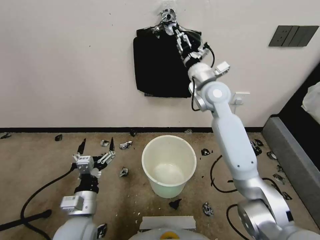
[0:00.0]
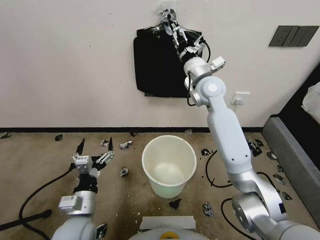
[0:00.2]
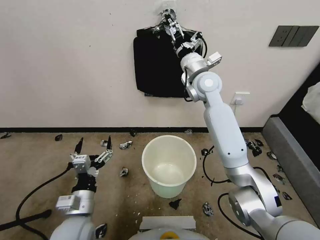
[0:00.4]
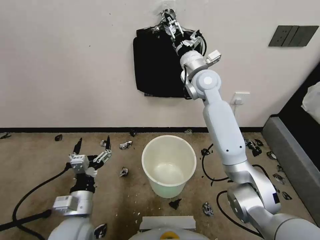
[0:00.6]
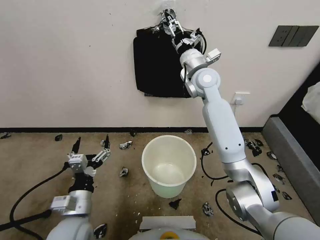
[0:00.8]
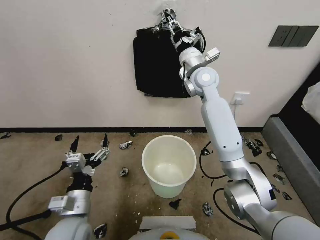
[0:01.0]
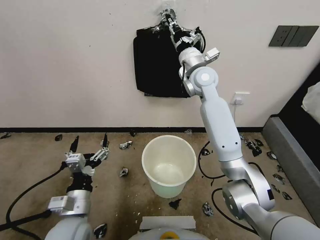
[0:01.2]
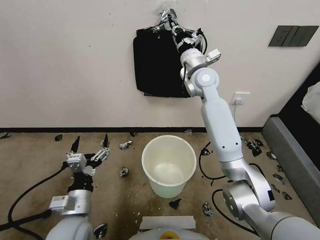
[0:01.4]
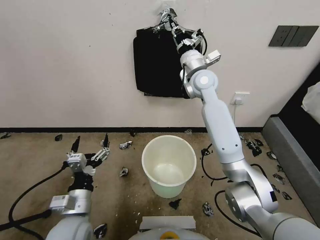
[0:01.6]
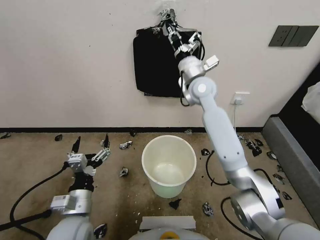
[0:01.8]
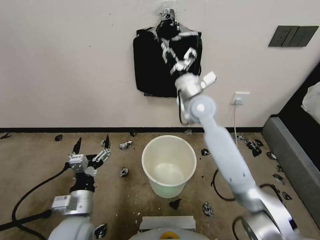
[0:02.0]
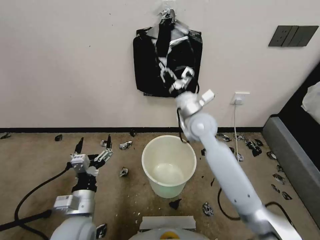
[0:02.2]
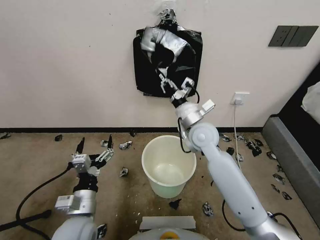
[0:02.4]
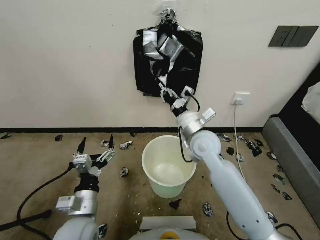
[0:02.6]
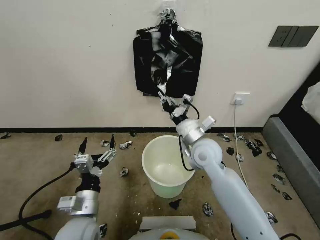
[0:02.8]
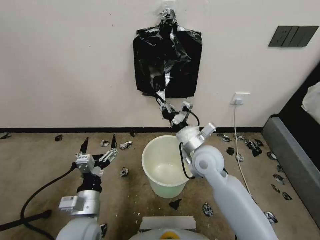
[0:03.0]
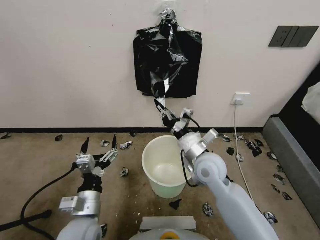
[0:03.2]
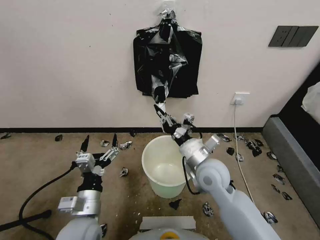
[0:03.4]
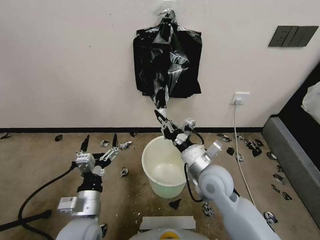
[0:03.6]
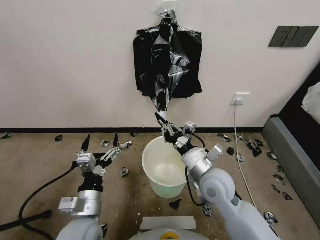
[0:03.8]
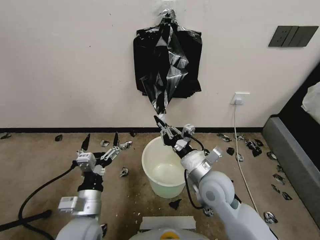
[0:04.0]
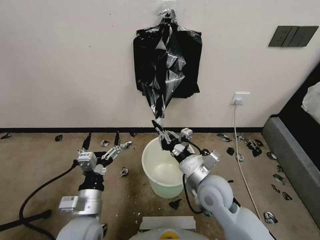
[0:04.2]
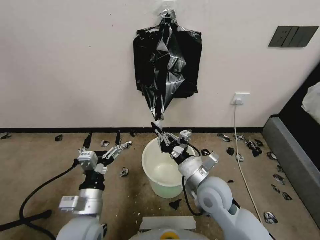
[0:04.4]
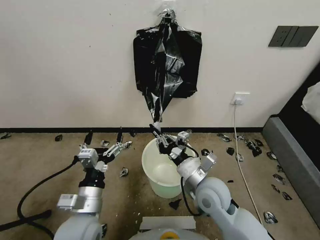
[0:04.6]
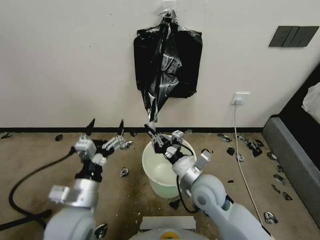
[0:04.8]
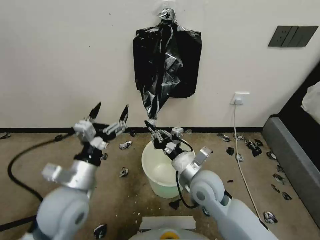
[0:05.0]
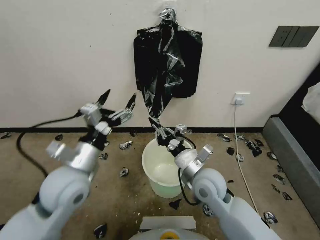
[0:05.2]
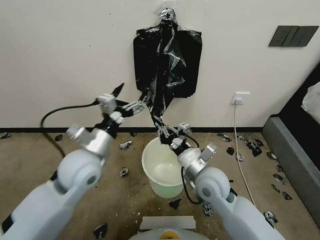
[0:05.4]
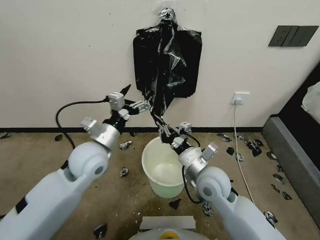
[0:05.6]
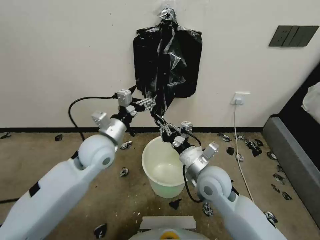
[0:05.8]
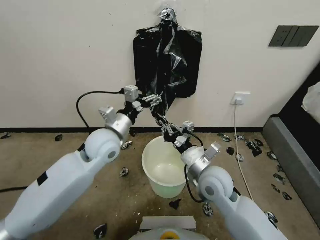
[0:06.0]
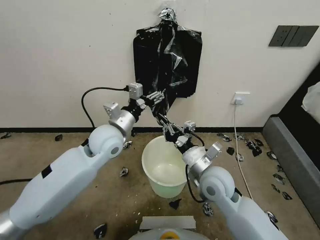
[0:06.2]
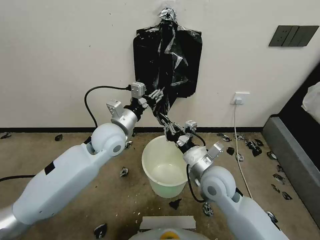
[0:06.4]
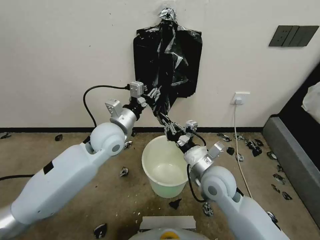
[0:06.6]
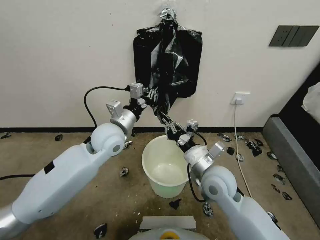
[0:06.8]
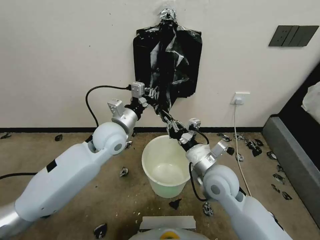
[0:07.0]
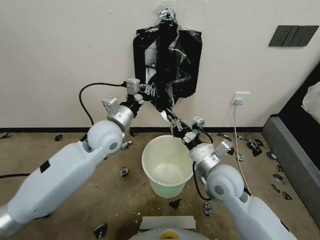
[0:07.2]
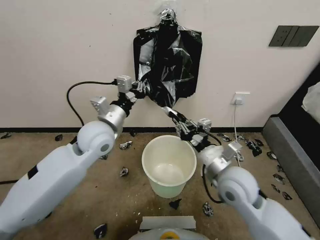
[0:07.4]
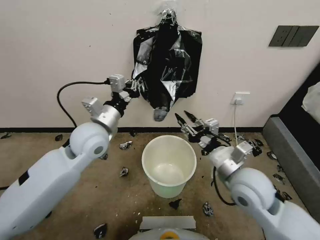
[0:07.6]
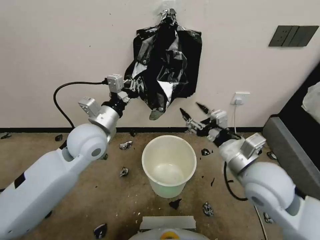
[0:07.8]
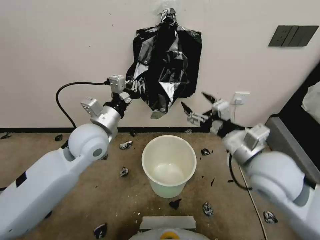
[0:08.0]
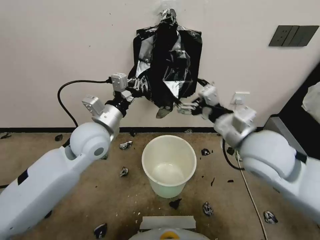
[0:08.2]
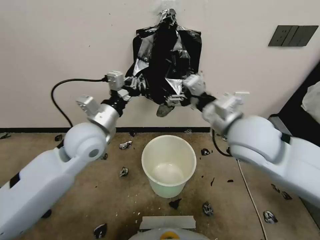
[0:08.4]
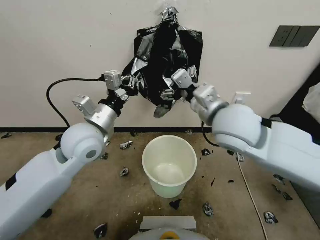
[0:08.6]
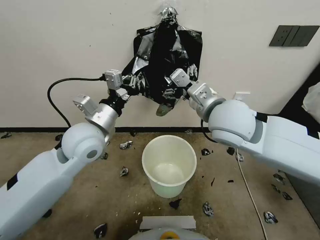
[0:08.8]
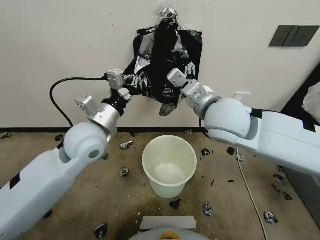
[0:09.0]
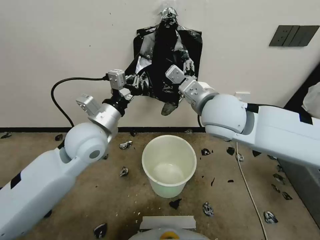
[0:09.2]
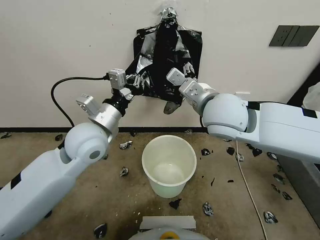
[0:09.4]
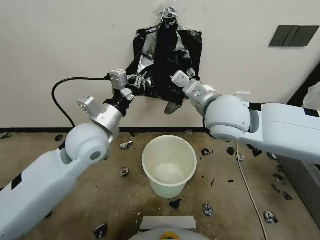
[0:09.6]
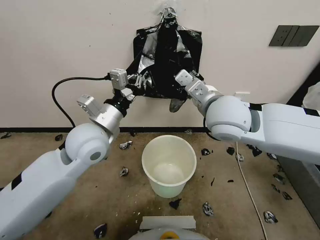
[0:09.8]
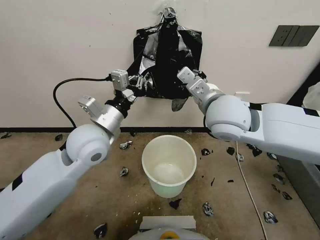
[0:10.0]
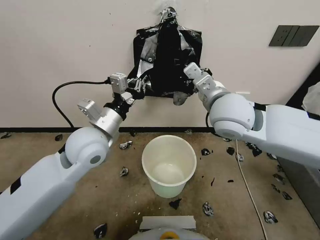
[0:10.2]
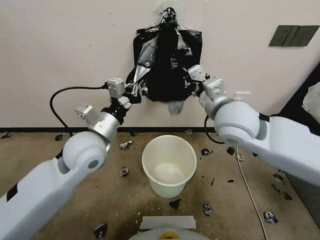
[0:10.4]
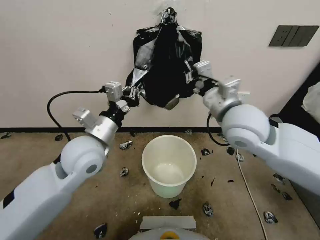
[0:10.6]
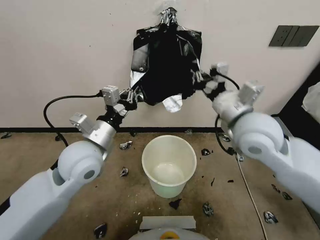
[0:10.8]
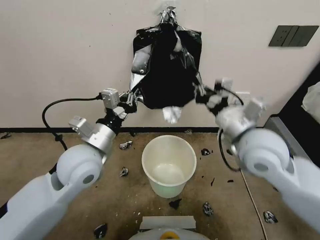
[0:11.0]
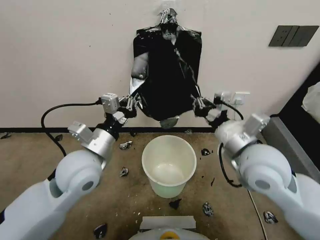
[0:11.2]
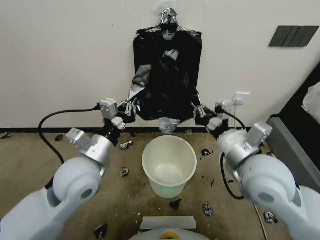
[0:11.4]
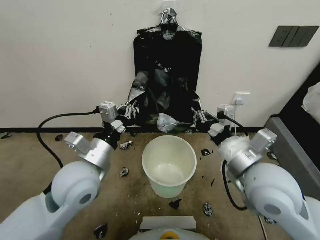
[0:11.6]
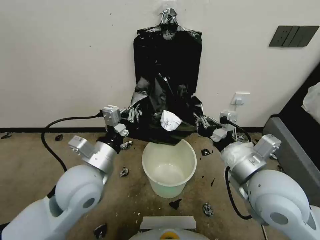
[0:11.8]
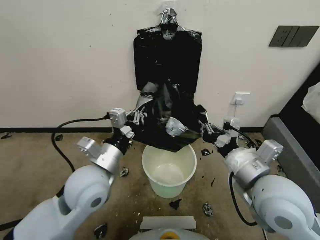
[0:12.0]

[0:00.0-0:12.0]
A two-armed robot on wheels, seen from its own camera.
Task of the whole recording: Place a trash bag onto the trash bin.
0:00.0 to 0:01.6: The right gripper shifts by some 5 cm, and closes its fingers.
0:01.6 to 0:03.0: The right gripper heads backward and downward, covering about 25 cm.
0:03.0 to 0:04.4: The right gripper travels backward by about 10 cm.
0:04.4 to 0:06.0: The left gripper travels forward and upward by about 20 cm.
0:06.0 to 0:07.6: The right gripper shifts about 10 cm to the right and upward, and opens up. Meanwhile the left gripper closes.
0:07.6 to 0:09.0: The right gripper shifts about 20 cm upward, forward and to the left, and opens its fingers.
0:09.0 to 0:10.4: The right gripper closes.
0:10.4 to 0:12.0: The left gripper moves backward, about 5 cm. The right gripper goes about 20 cm backward, downward and to the right.

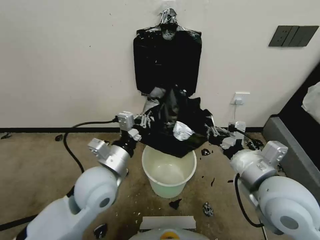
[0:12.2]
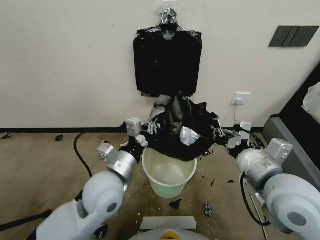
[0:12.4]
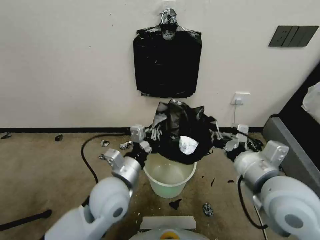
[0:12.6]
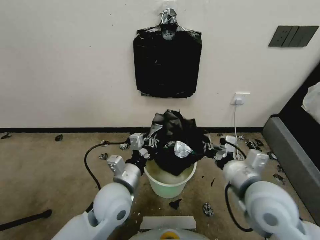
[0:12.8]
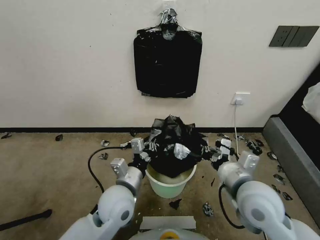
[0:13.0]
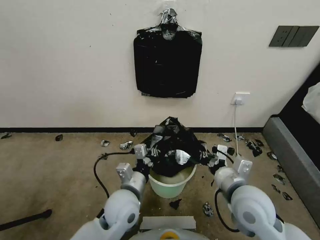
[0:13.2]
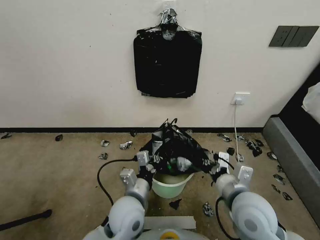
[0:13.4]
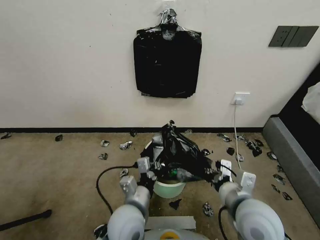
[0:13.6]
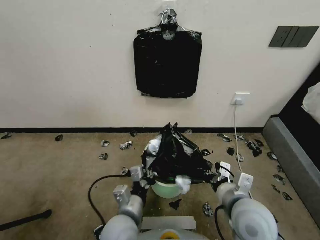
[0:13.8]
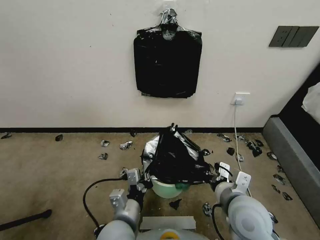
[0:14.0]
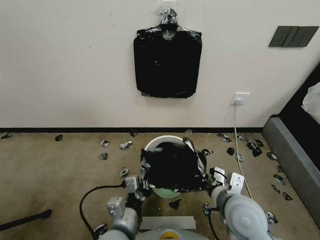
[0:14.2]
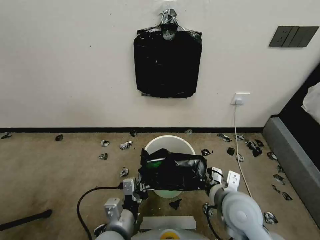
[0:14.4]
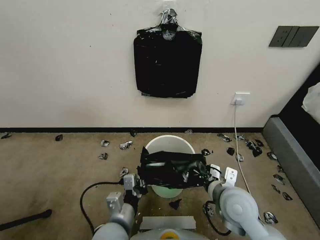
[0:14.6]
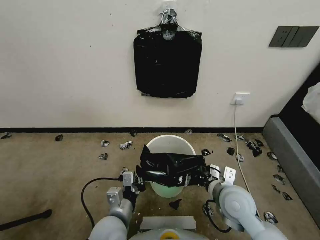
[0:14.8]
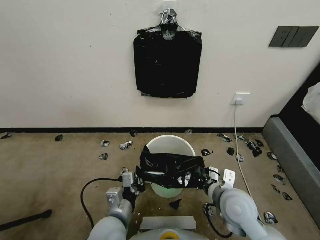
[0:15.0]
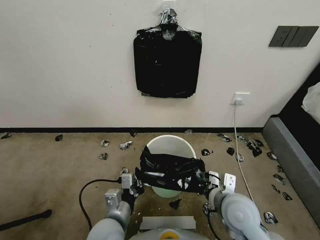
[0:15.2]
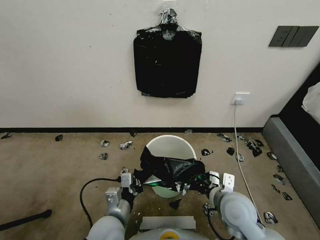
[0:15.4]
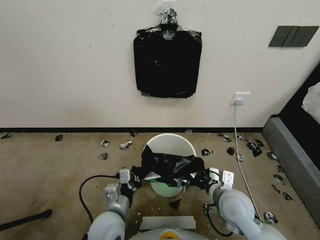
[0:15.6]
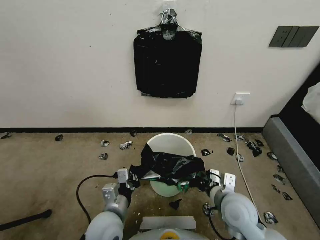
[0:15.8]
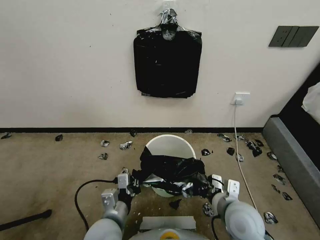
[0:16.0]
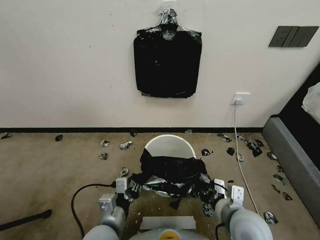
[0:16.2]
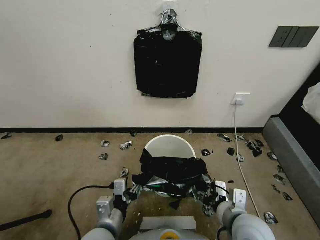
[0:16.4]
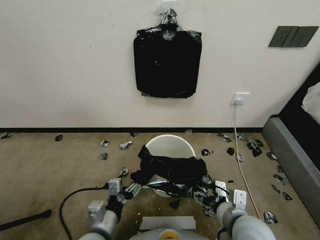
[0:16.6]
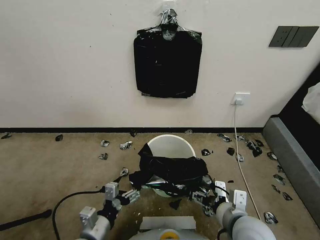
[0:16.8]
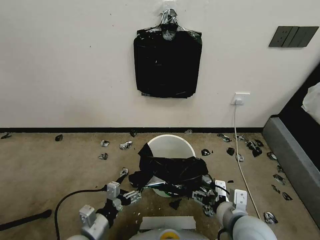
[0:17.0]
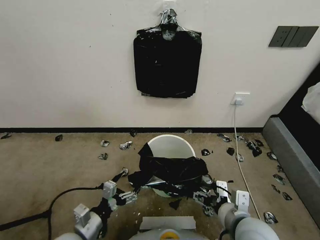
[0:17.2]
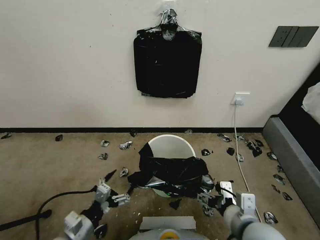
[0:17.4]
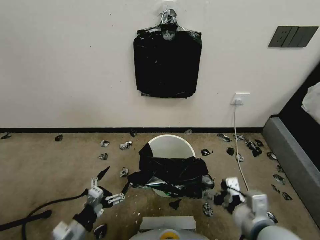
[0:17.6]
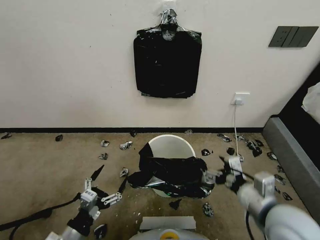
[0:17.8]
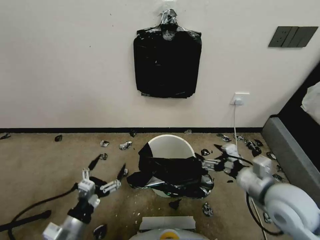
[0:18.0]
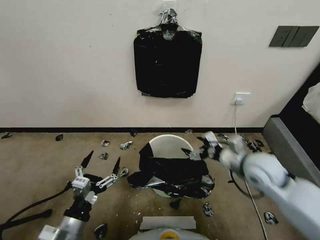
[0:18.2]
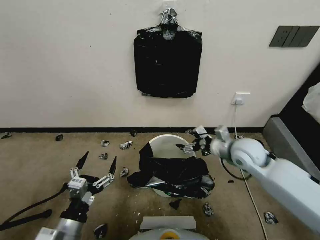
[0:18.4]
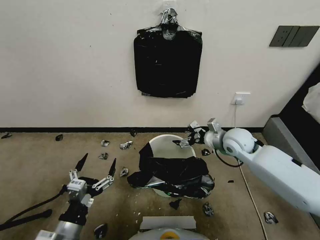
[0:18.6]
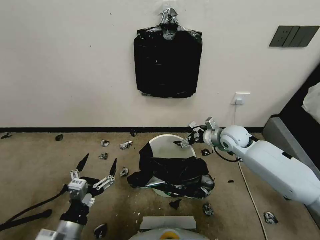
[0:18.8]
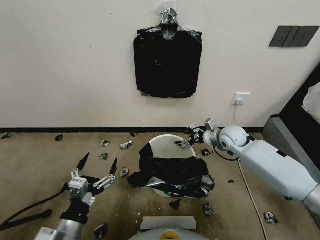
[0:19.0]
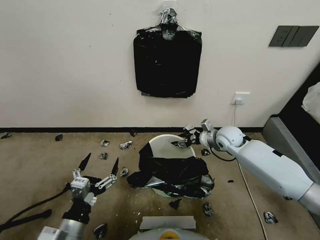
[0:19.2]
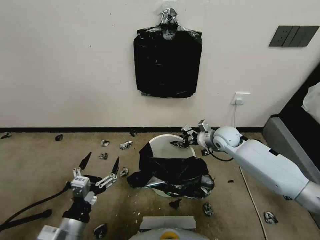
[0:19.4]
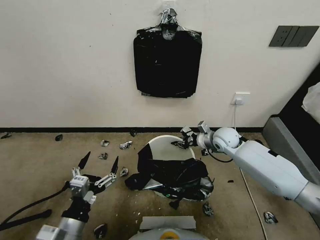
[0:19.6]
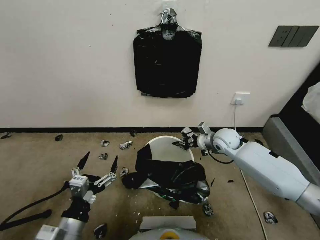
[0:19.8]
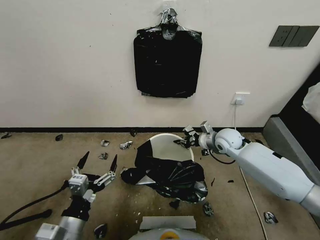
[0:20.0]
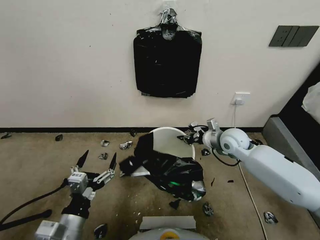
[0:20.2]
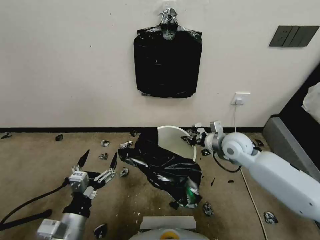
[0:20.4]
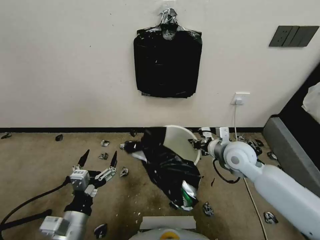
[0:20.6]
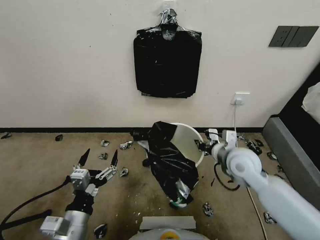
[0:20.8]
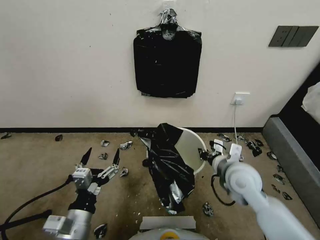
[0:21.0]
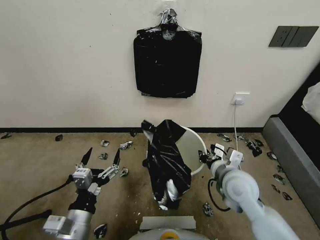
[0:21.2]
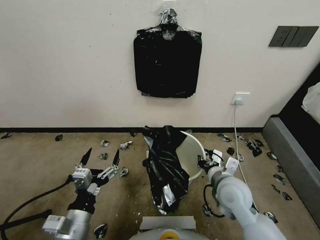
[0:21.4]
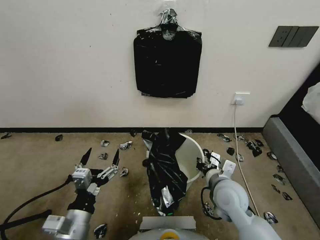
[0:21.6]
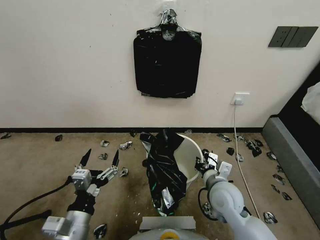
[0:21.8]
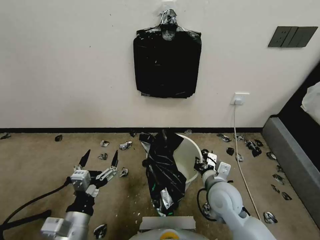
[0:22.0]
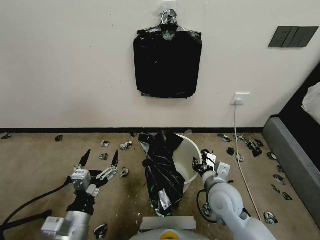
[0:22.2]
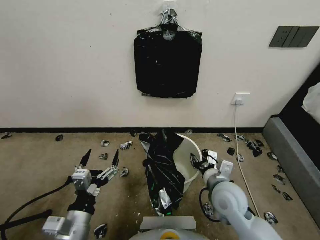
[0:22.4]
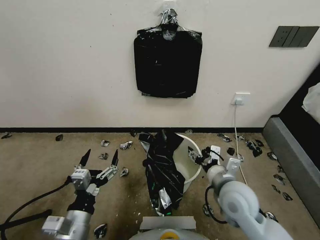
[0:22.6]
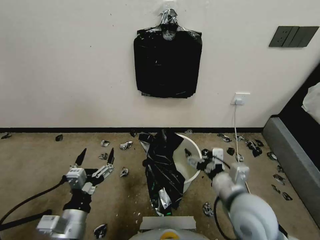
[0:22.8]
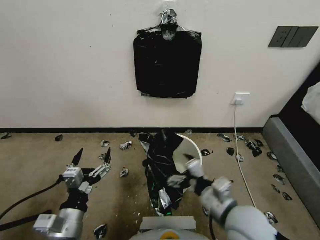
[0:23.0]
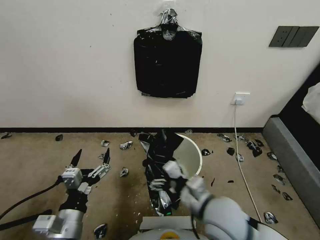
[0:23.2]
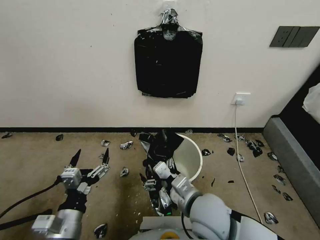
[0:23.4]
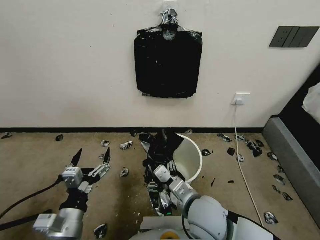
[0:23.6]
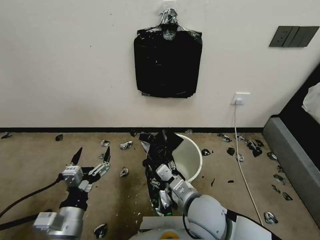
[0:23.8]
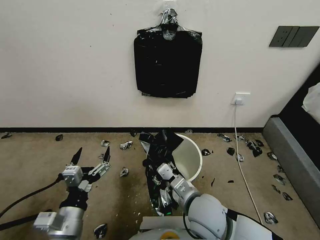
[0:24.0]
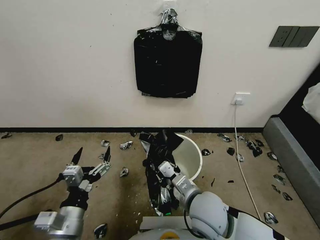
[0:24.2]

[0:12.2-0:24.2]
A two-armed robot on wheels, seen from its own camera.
Task of the whole recording: Place a trash bag onto the trash bin.
0:12.2 to 0:13.8: The right gripper shifts some 10 cm downward; the left gripper moves downward and backward, about 15 cm.
0:15.2 to 0:16.6: The left gripper ends up roughly 5 cm from where it was, and opens up; the right gripper goes approximately 5 cm backward, and opens.
0:16.6 to 0:18.2: The right gripper travels forward, to the right and upward by roughly 15 cm; the left gripper travels to the left by some 5 cm.
0:18.2 to 0:19.8: The right gripper travels forward and downward by roughly 20 cm, and closes up.
0:19.8 to 0:21.2: The right gripper moves backward, about 20 cm.
0:21.2 to 0:22.6: The right gripper opens up.
0:22.6 to 0:24.2: The right gripper goes approximately 10 cm to the left, and closes.
